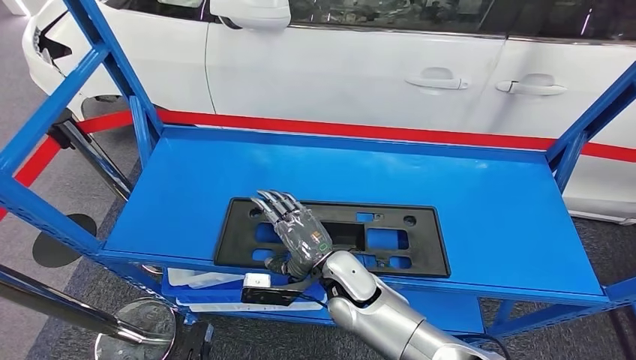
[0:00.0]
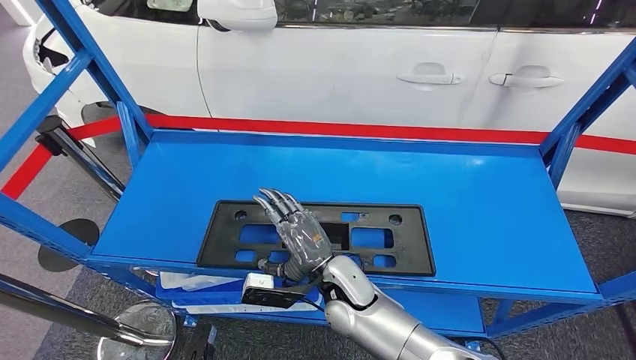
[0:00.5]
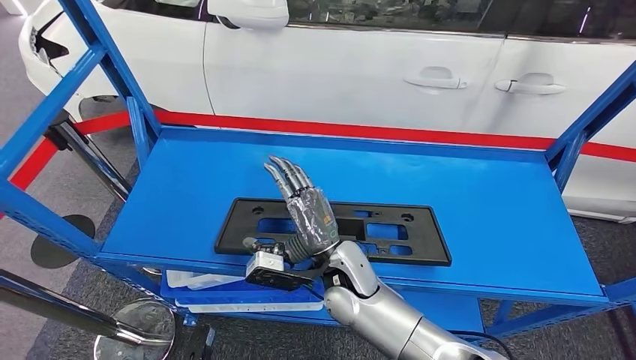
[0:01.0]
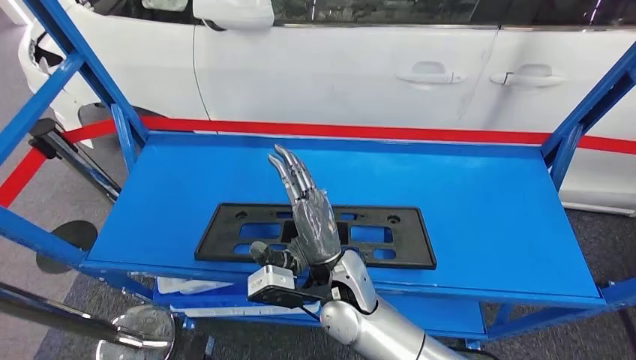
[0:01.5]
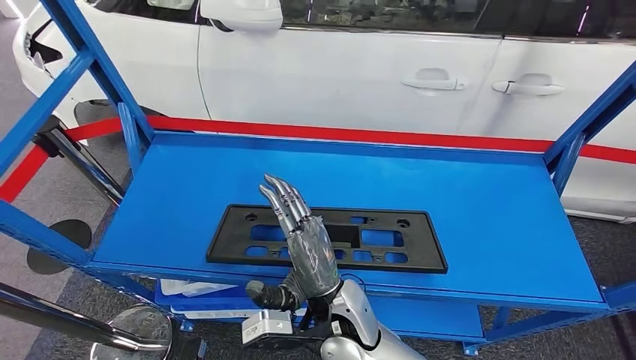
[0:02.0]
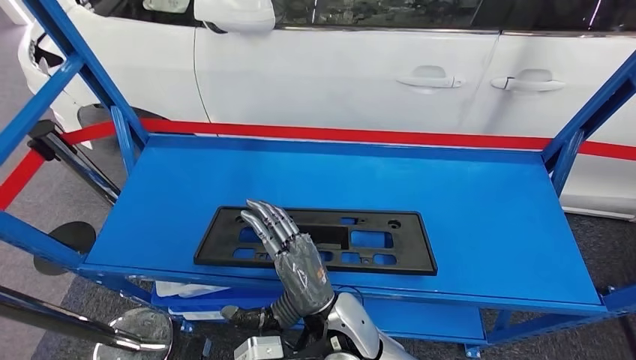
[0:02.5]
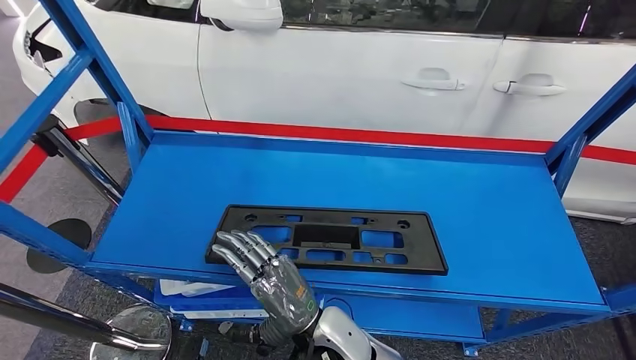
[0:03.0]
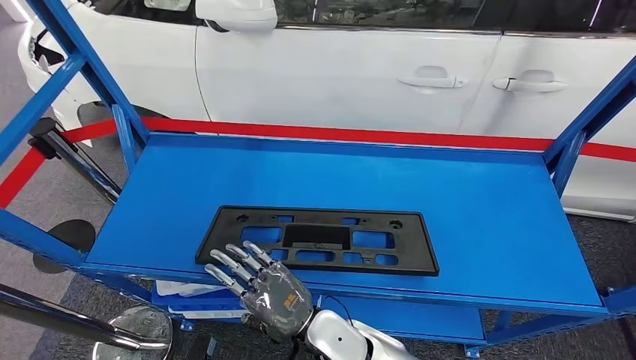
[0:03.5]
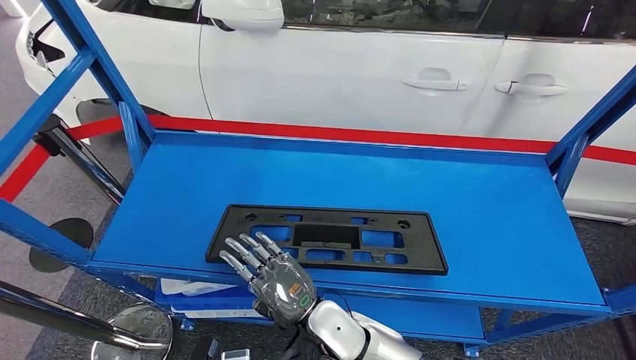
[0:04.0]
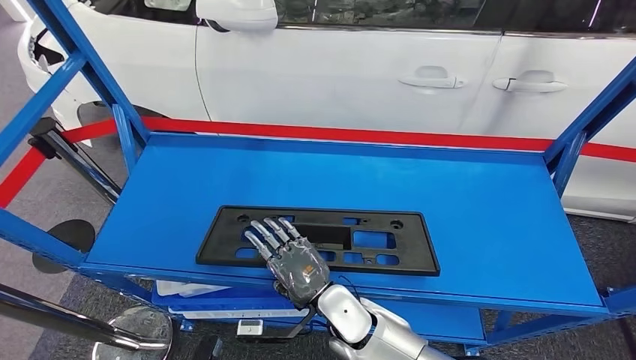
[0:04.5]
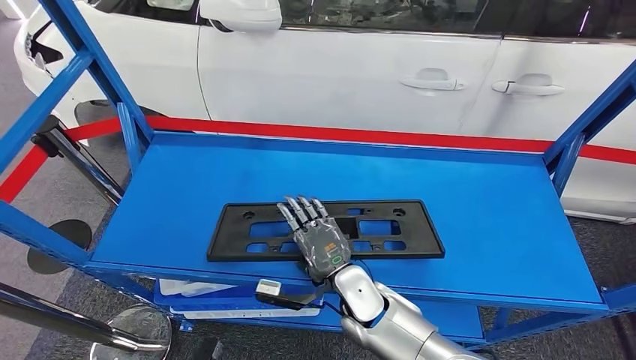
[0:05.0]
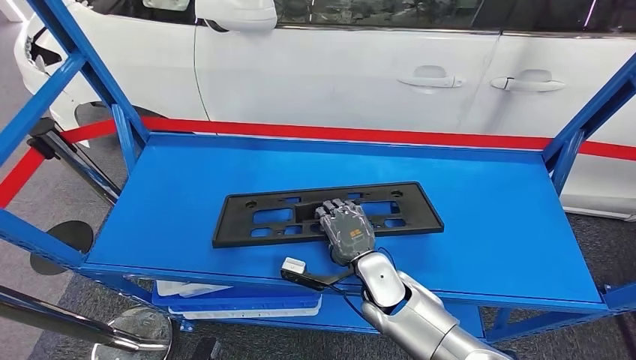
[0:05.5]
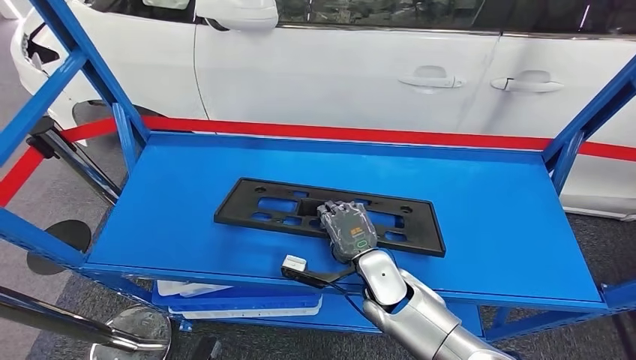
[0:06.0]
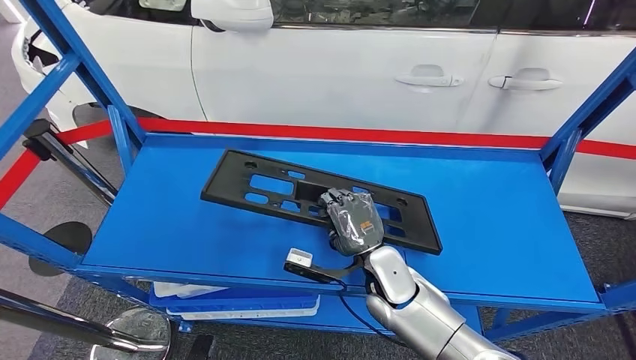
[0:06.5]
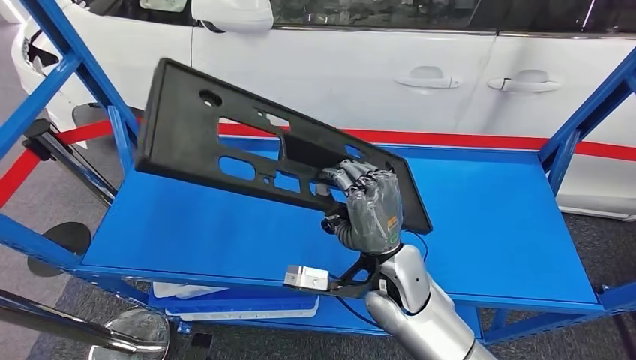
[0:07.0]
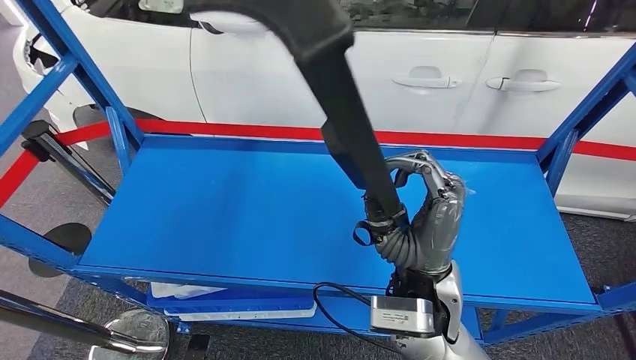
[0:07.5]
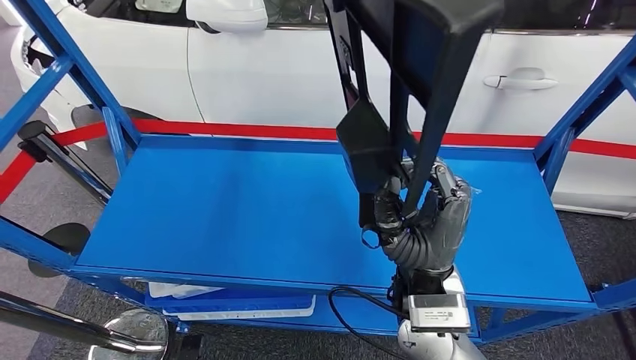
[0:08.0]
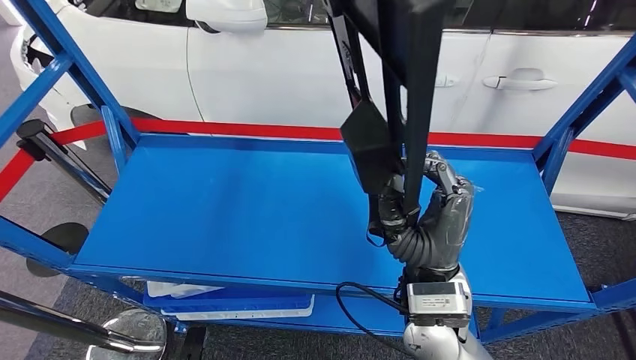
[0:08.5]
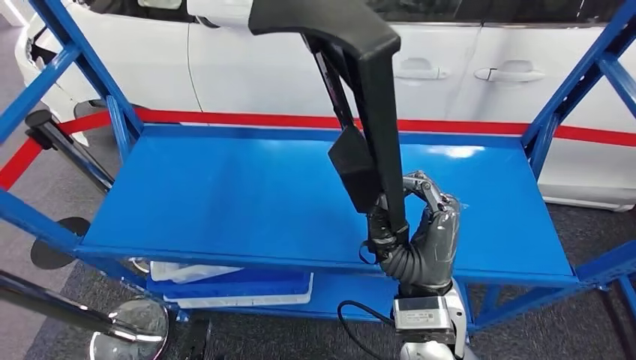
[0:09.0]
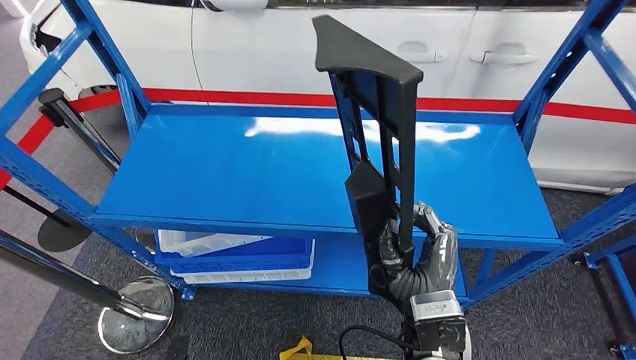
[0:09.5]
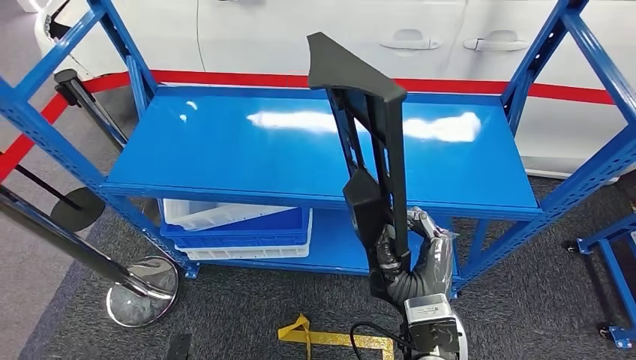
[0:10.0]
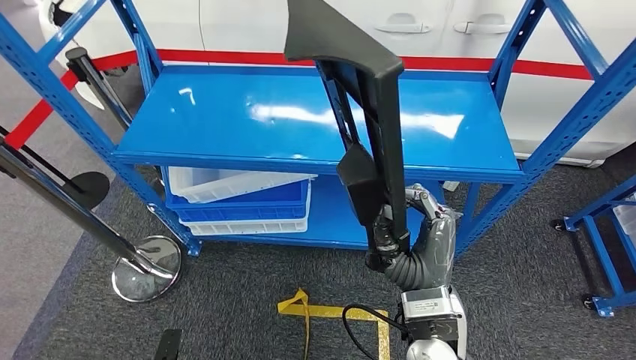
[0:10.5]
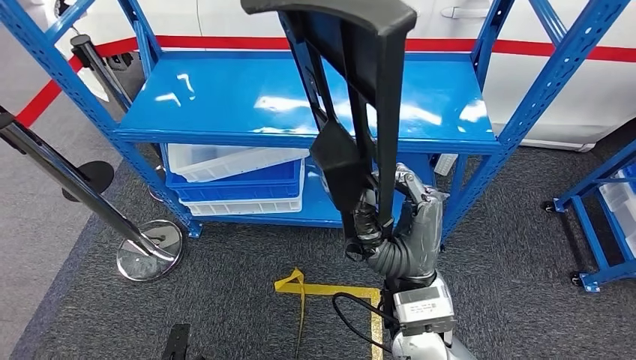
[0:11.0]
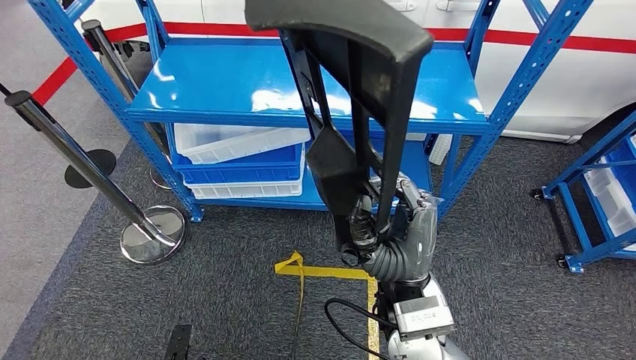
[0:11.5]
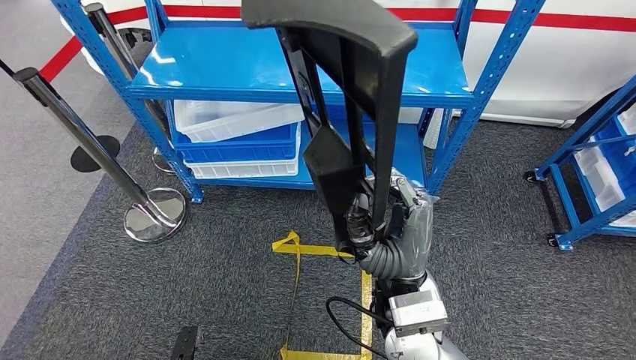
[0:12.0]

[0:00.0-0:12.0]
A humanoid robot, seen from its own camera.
Step, 0:00.0 to 0:07.5: Pick up the large material from the shelf.
0:02.0 to 0:04.0: The right hand is displaced downward by some 5 cm.

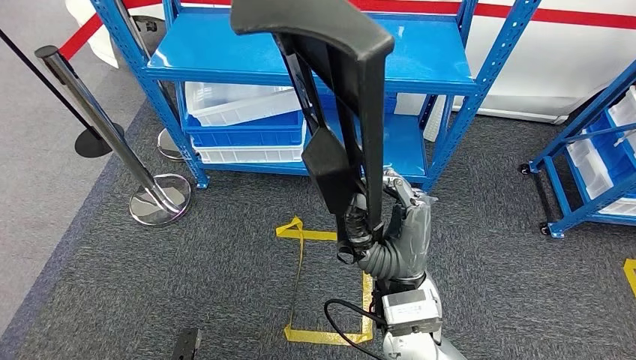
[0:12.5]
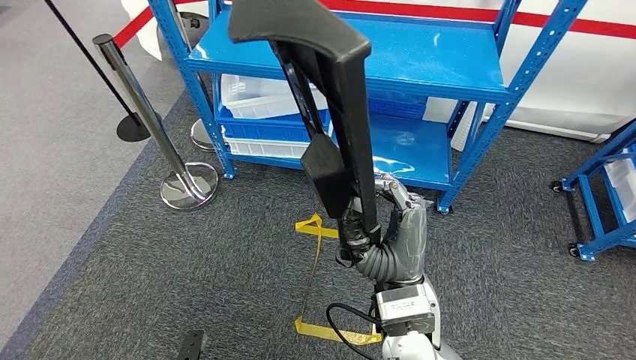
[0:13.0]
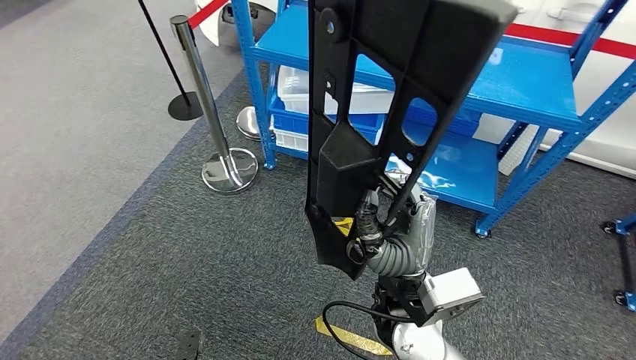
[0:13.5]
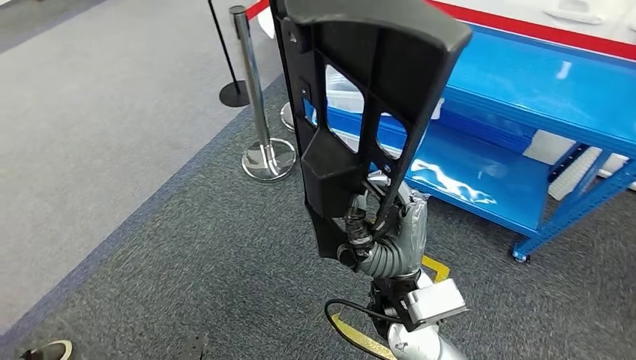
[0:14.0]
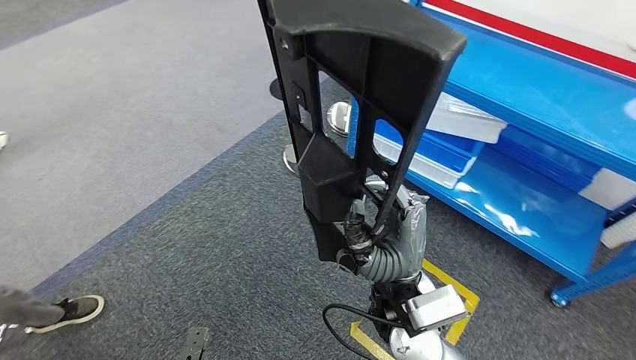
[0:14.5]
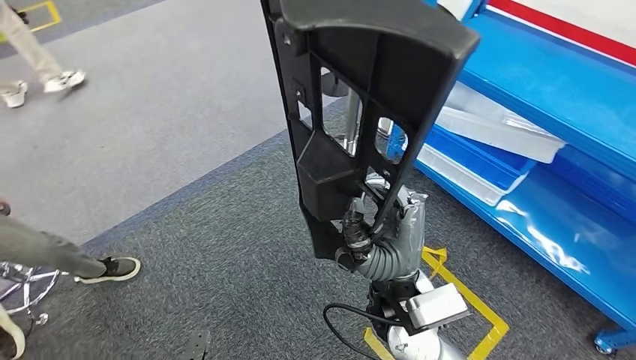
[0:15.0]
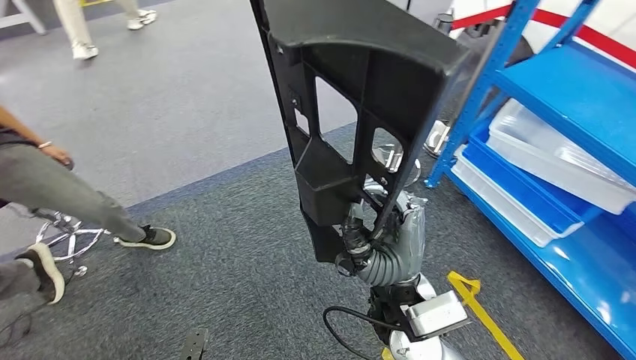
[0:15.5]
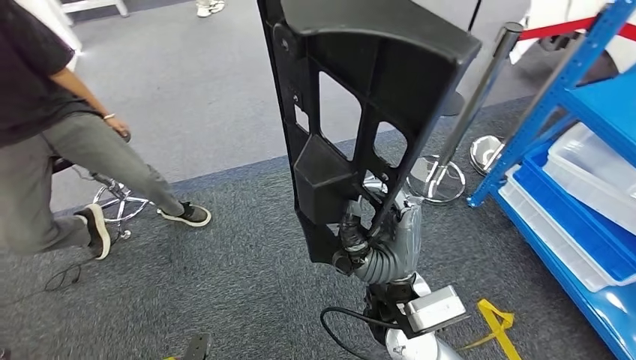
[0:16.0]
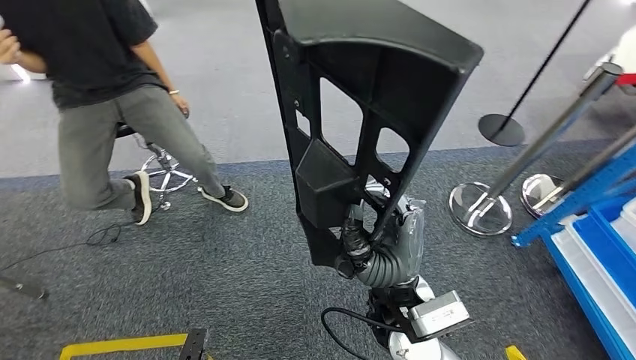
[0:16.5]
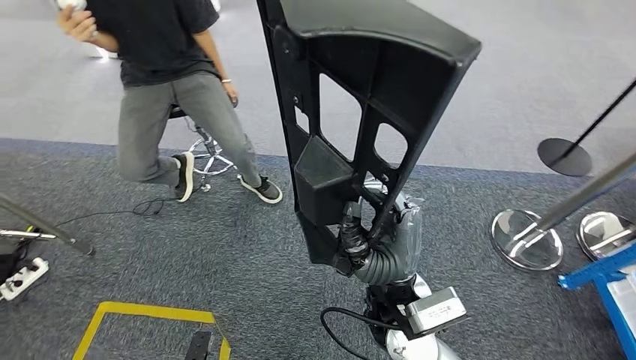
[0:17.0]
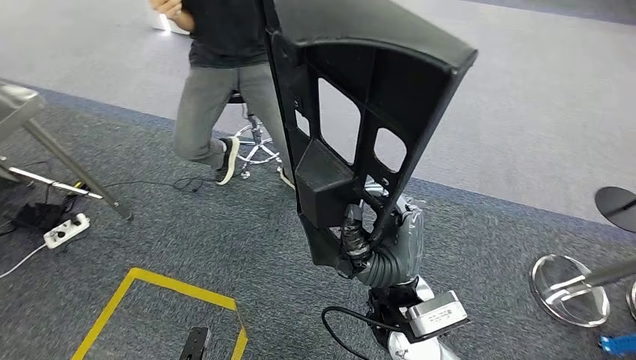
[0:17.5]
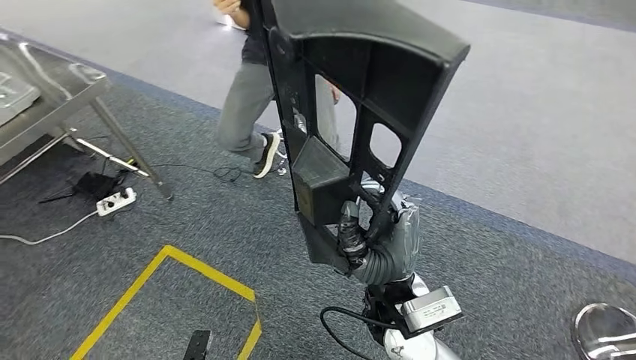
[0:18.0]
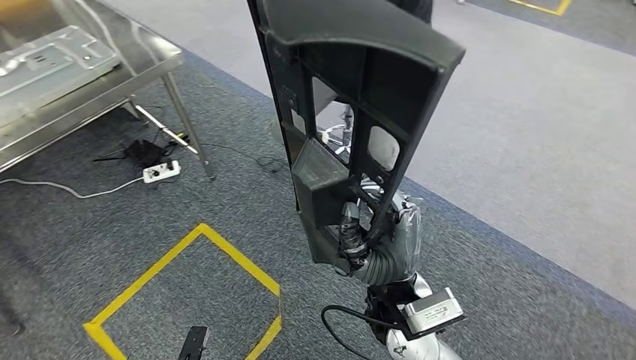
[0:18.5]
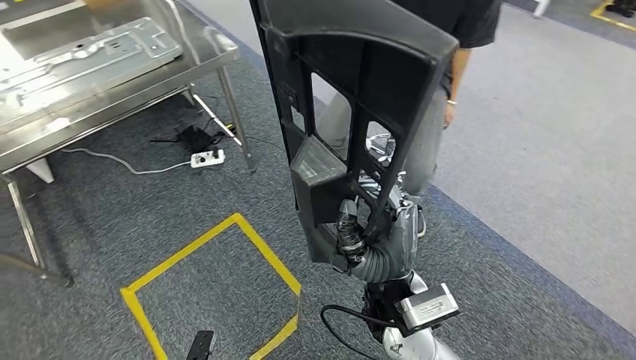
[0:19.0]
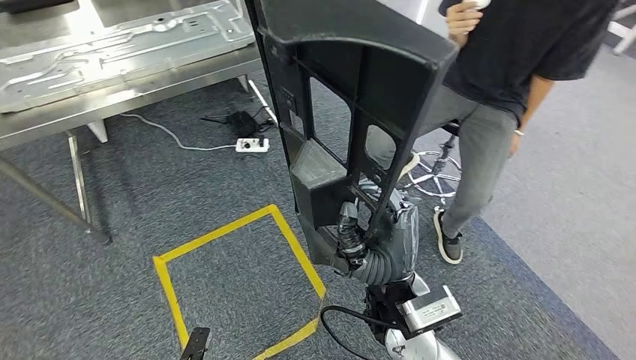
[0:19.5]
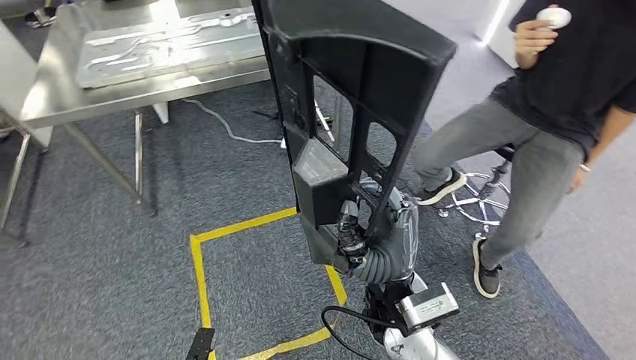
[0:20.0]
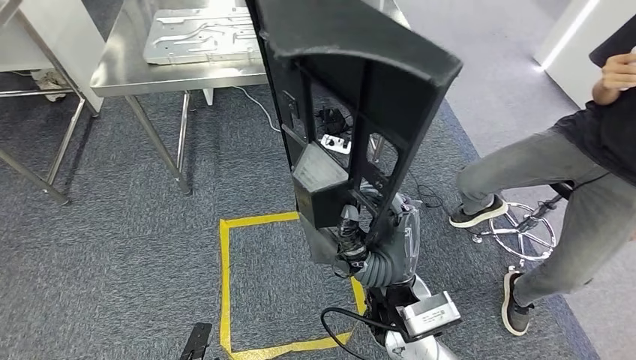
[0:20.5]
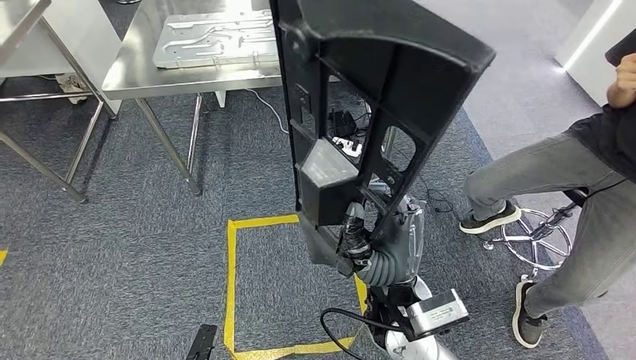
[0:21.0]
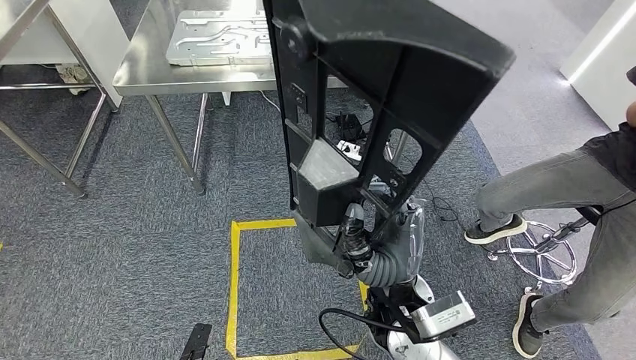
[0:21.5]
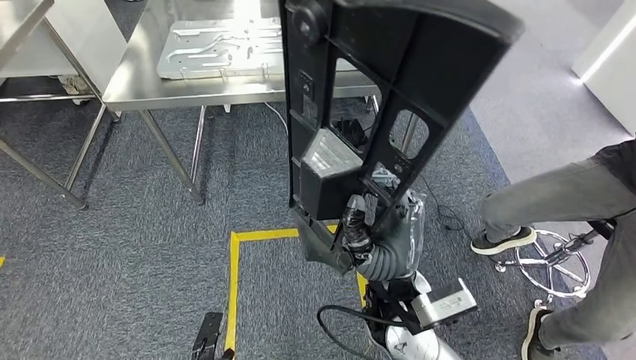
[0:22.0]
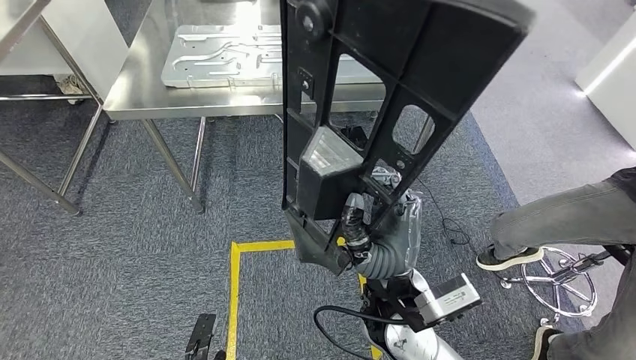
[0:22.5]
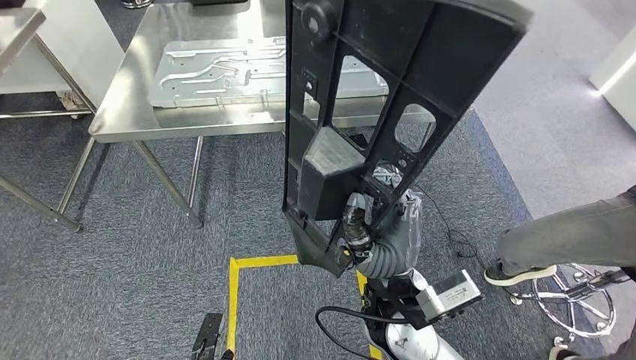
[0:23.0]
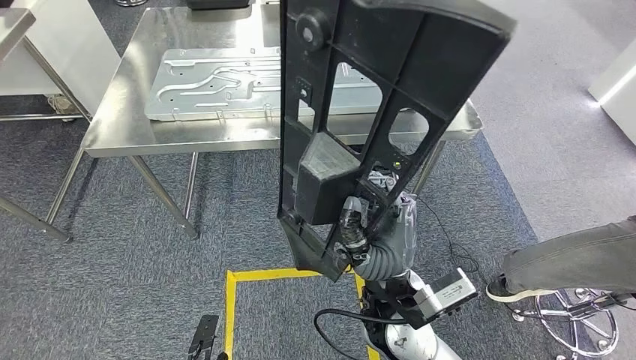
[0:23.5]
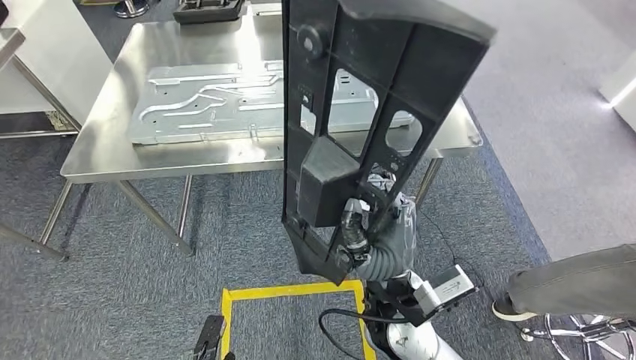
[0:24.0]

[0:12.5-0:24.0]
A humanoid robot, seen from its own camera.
Step, 0:12.5 to 0:21.5: Move the large material to the workbench.
